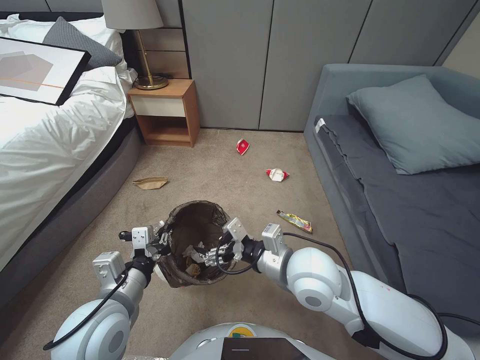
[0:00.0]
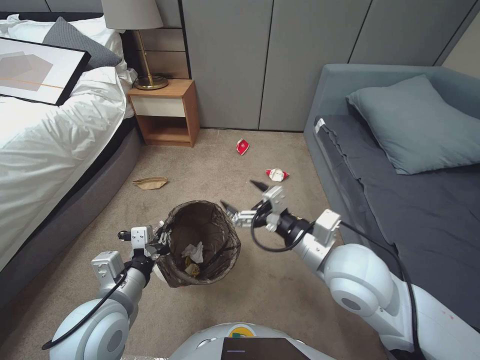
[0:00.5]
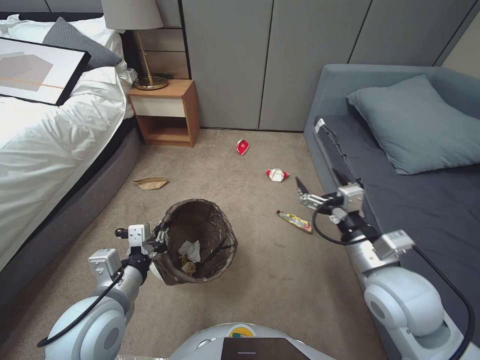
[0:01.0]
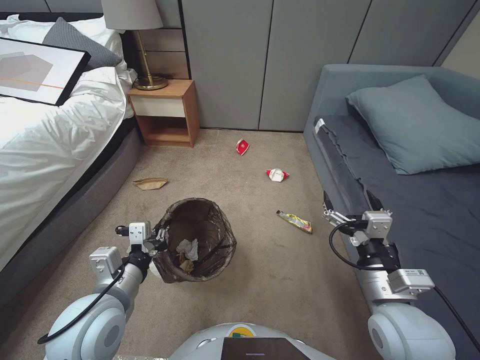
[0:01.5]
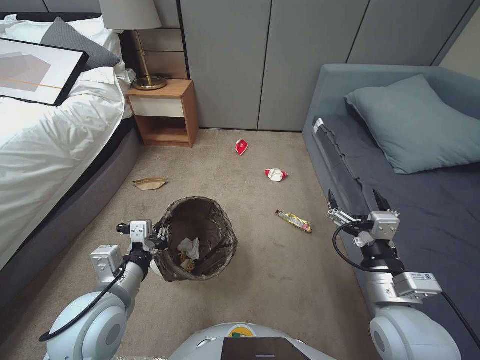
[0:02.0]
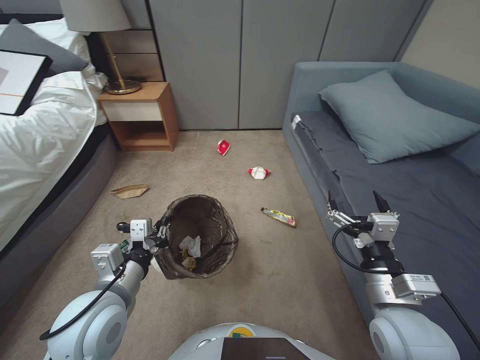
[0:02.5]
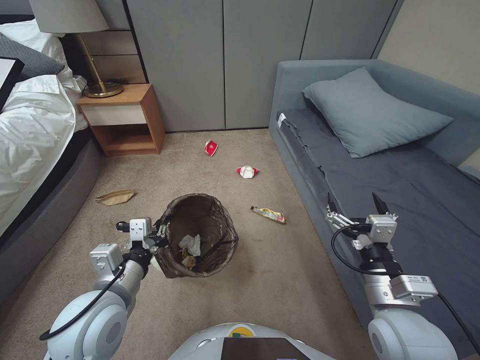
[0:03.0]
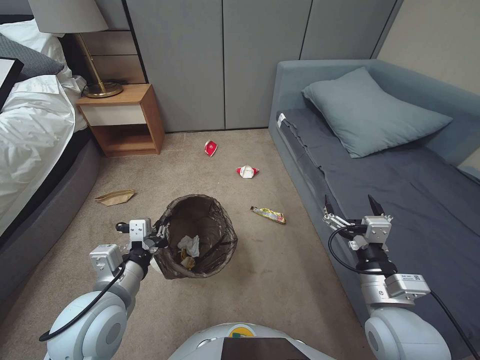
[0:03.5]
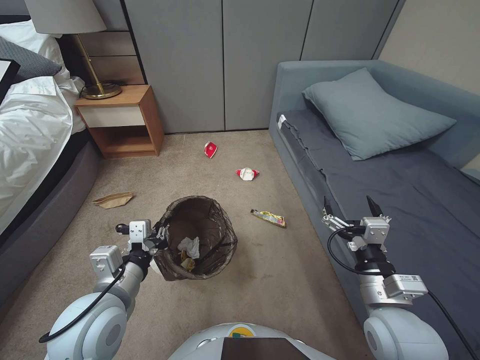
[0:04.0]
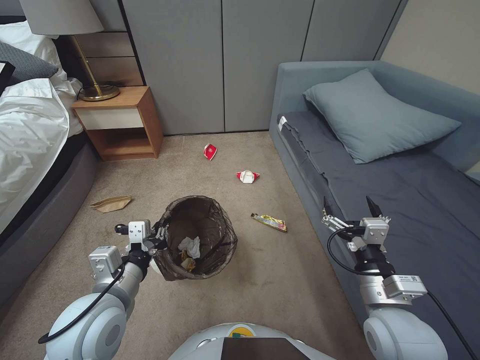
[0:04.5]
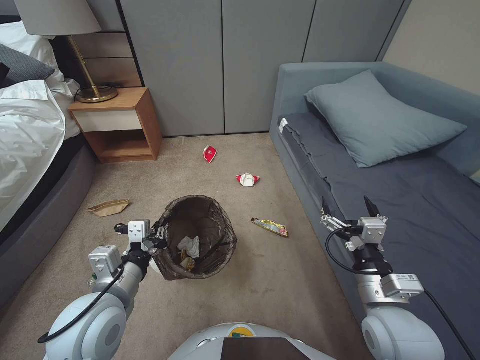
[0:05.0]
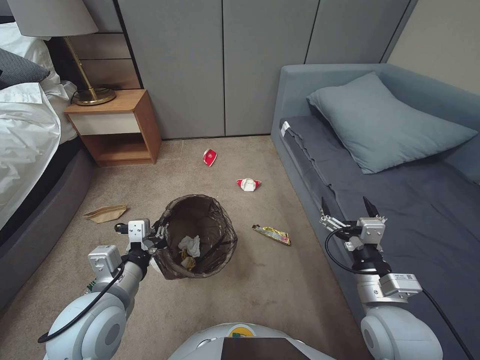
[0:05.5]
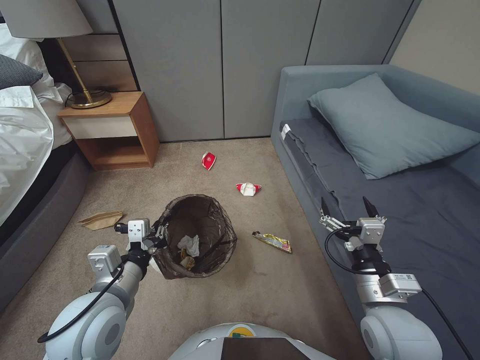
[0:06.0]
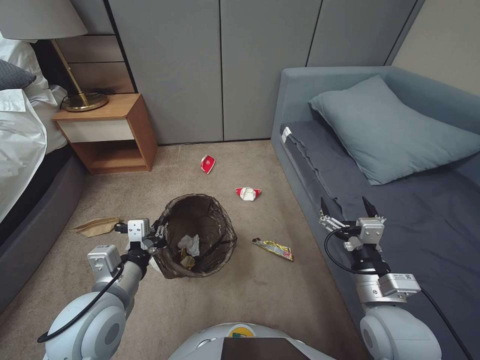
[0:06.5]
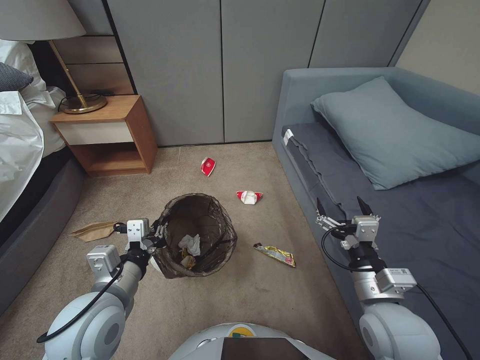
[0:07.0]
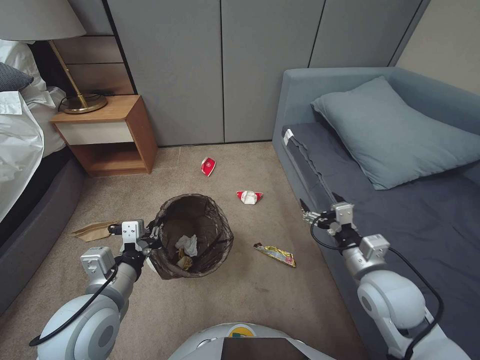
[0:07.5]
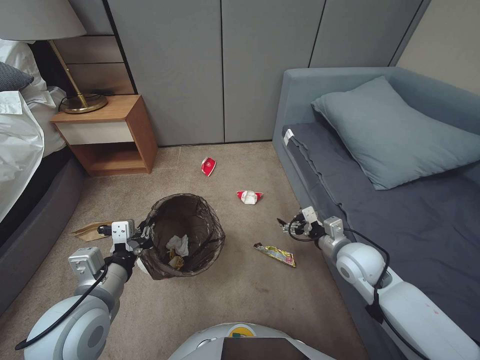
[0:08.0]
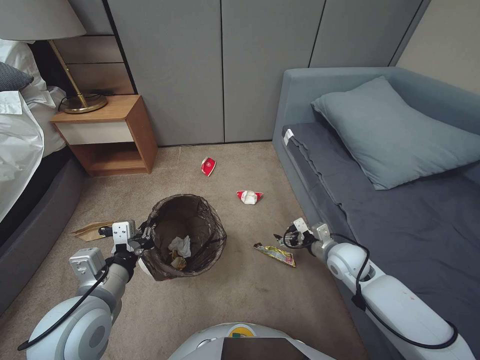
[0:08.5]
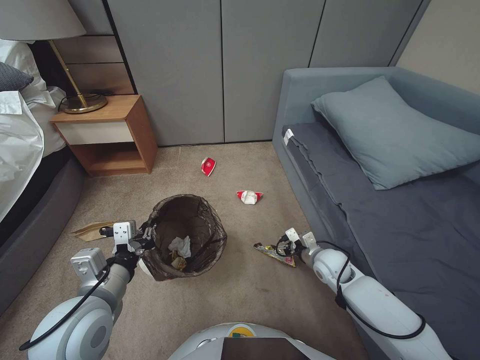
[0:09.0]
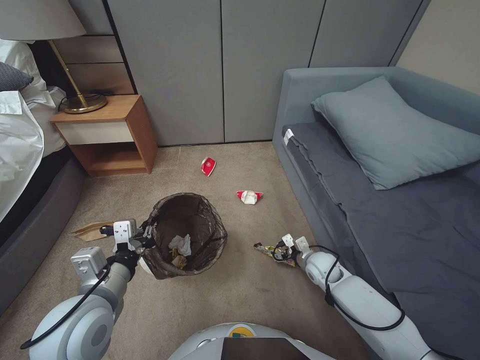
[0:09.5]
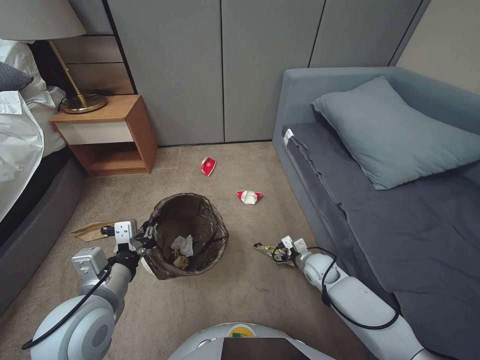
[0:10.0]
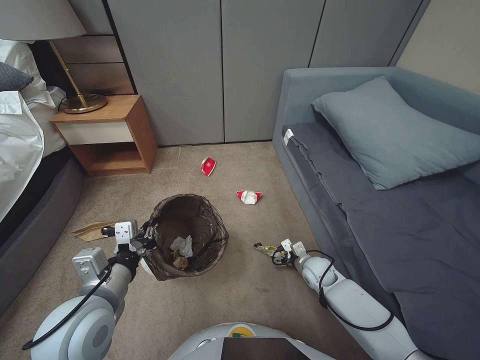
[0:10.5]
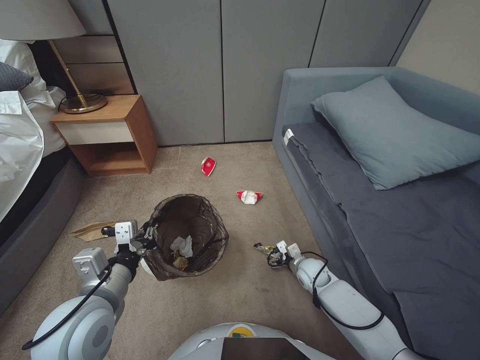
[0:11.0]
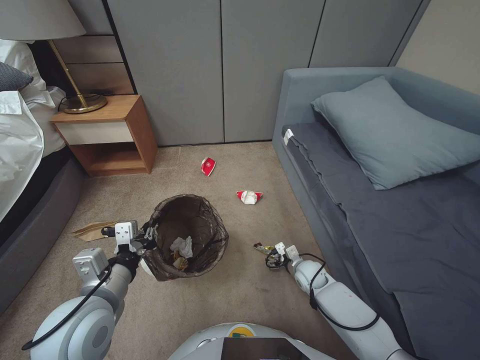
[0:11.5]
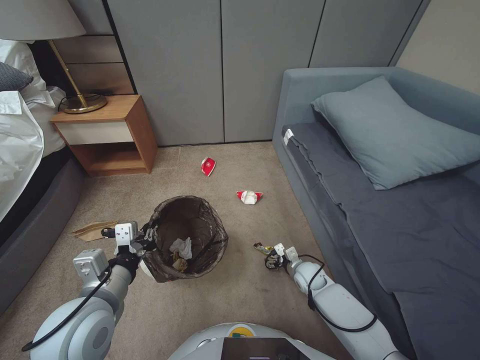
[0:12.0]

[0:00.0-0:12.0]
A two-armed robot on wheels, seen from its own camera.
Task of the whole recording: Pick up the trash bin, then pick up the garbage from the floor and place it into the trash bin.
0.0 to 2.0 s: The right gripper shifts roughly 15 cm to the right and backward.
4.0 to 6.0 s: Both grippers stay put.
6.0 to 8.0 s: The right gripper goes roughly 15 cm forward.
8.0 to 10.0 s: The right gripper shifts some 15 cm downward.
10.0 to 12.0 s: The right gripper moves downward, about 5 cm.

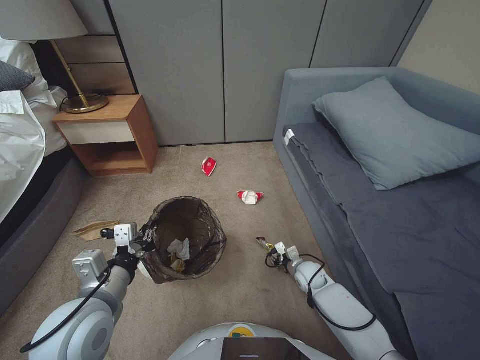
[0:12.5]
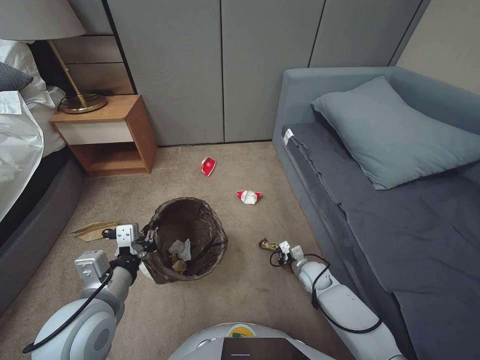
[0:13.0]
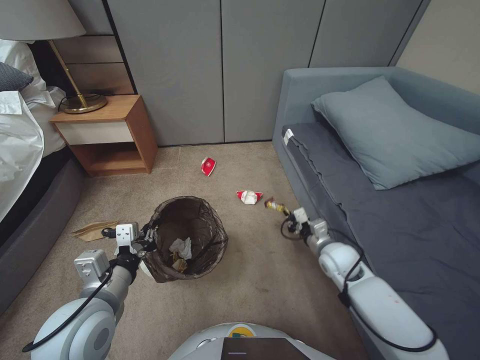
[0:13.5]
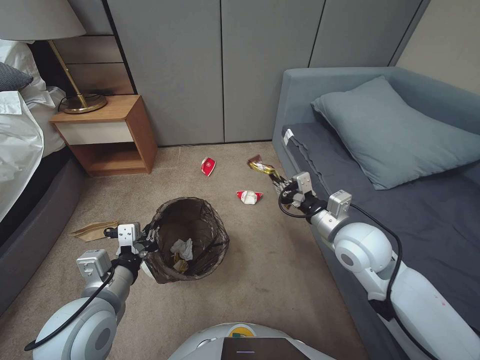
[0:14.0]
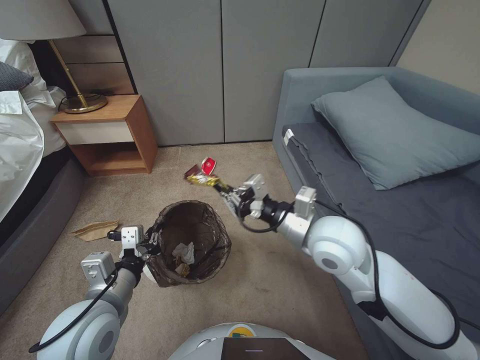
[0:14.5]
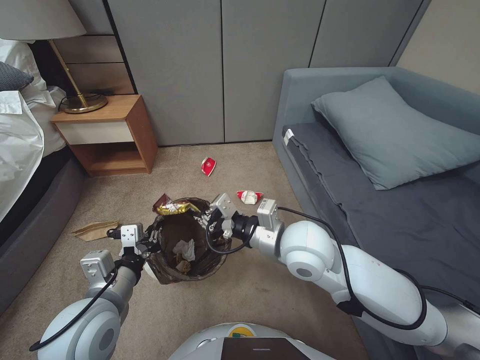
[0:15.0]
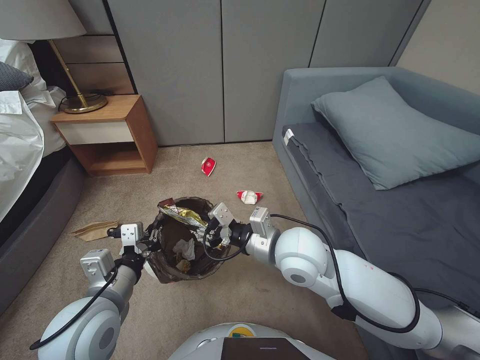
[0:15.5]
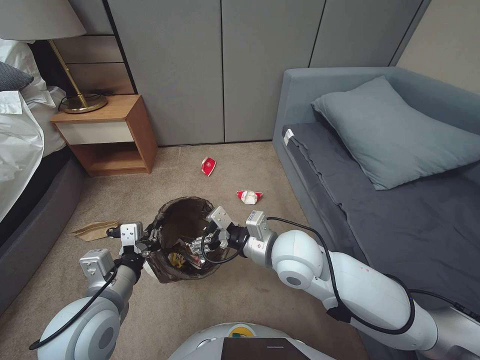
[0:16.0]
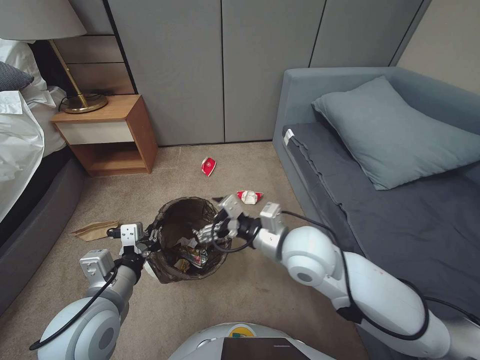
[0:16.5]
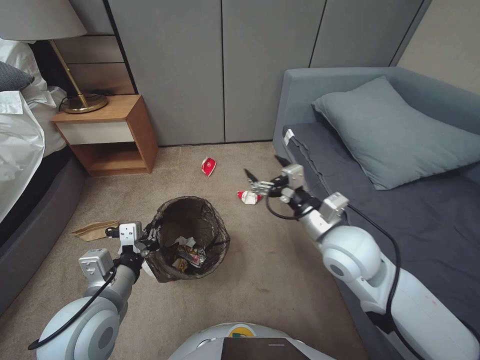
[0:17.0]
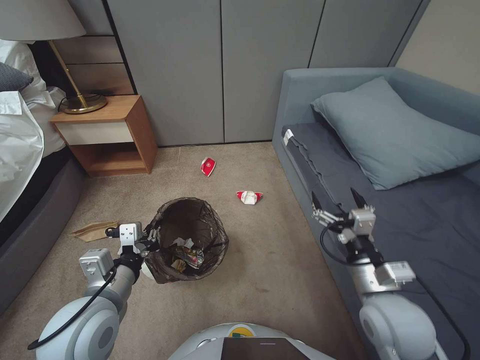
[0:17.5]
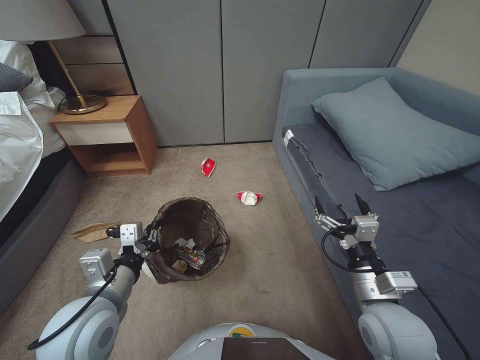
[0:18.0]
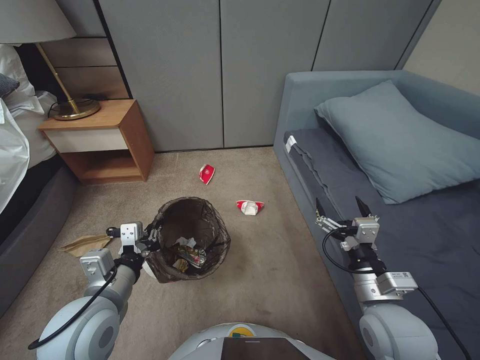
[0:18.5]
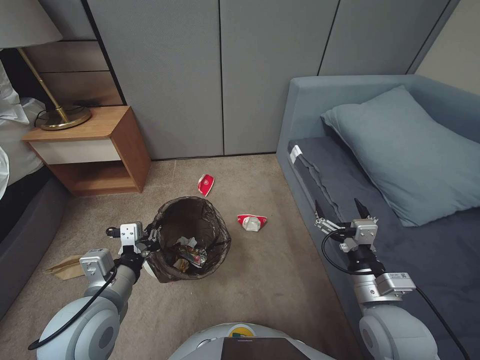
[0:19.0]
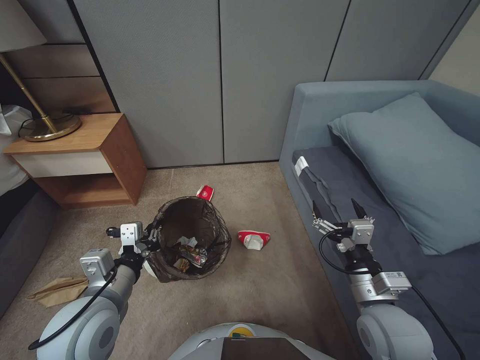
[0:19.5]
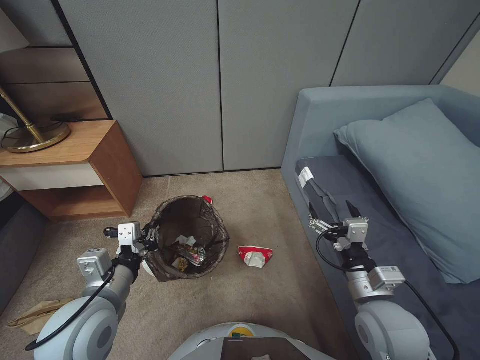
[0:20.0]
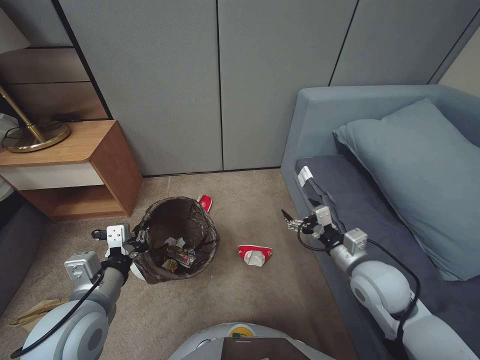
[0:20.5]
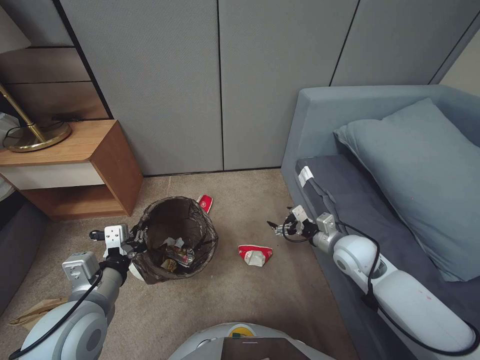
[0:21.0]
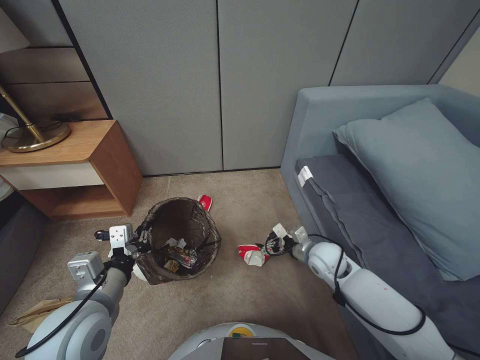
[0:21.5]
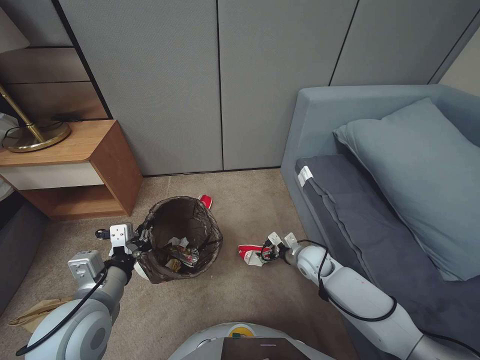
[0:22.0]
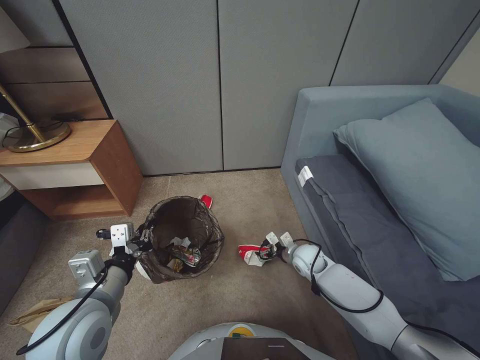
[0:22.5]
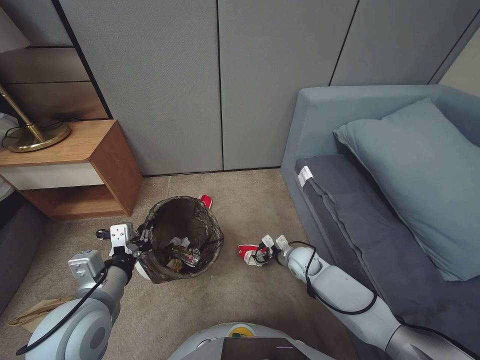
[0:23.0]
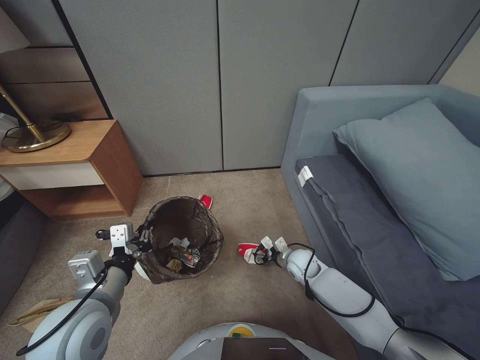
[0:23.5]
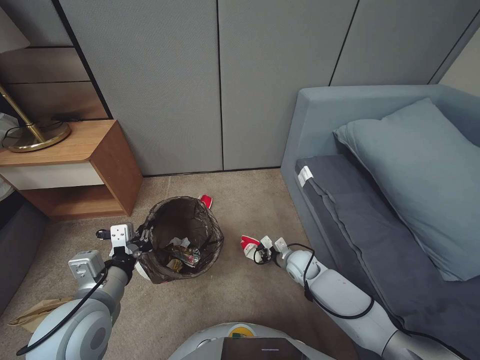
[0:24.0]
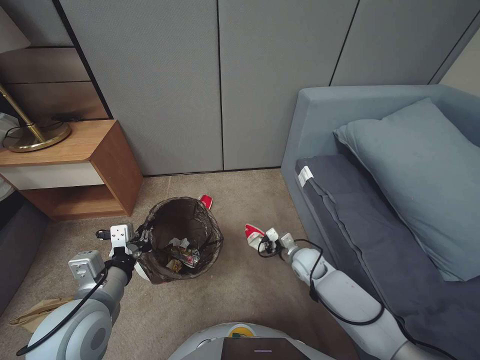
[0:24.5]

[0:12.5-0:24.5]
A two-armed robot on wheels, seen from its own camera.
Task of the whole recording: Pick up the trash bin, then pick up the garbage from the floor and place it into the trash bin.
12.5 to 14.5 s: The right gripper shifts roughly 35 cm upward, and closes.
14.5 to 16.5 s: The right gripper is displaced to the left by some 5 cm, and opens up.
16.5 to 18.5 s: The right gripper moves to the right, backward and downward, approximately 20 cm.
18.5 to 20.5 s: The right gripper heads forward, covering about 5 cm.
20.5 to 22.5 s: The right gripper travels downward and forward by about 25 cm.
22.5 to 24.5 s: The right gripper closes up.

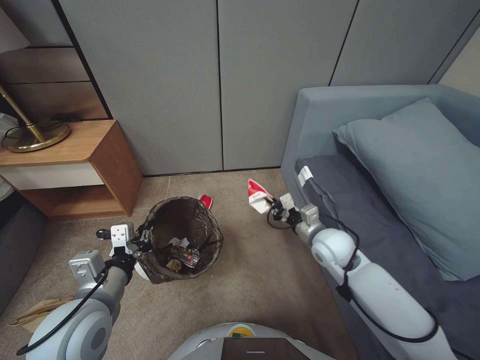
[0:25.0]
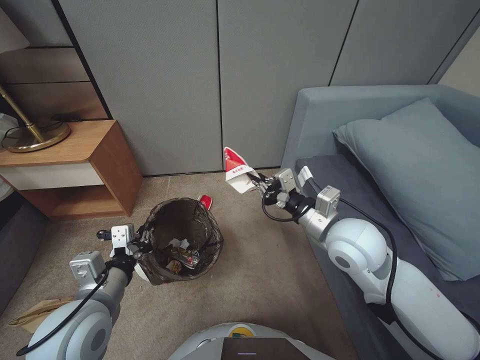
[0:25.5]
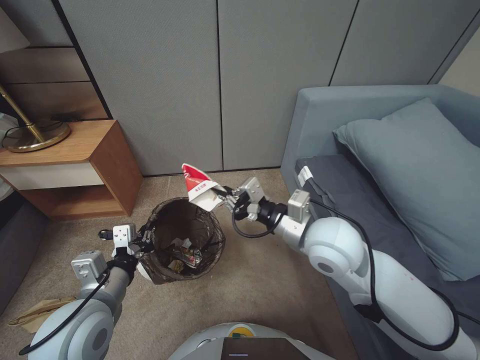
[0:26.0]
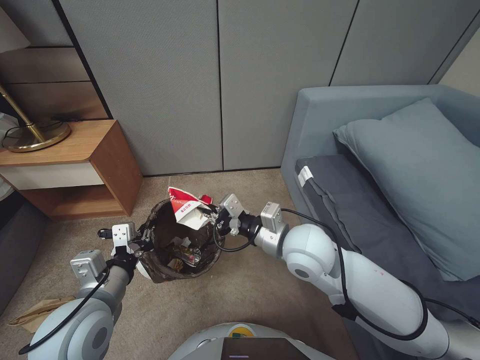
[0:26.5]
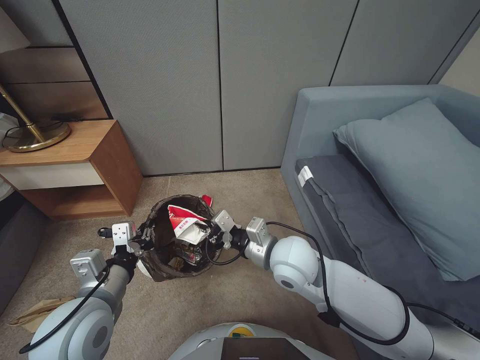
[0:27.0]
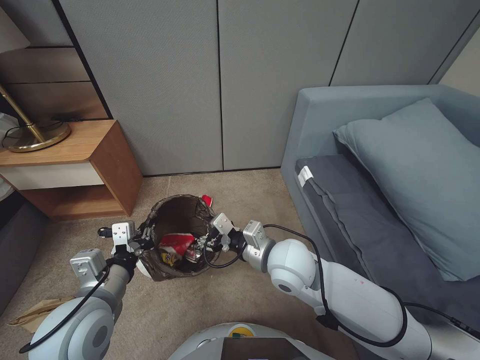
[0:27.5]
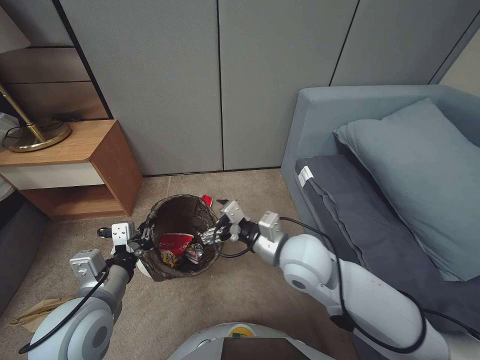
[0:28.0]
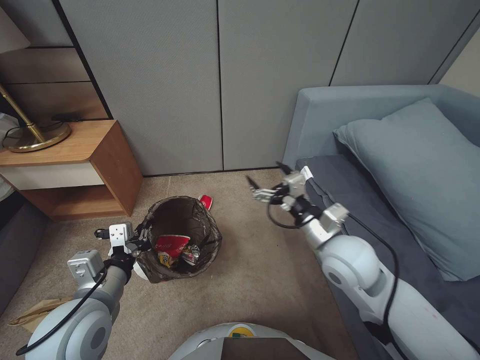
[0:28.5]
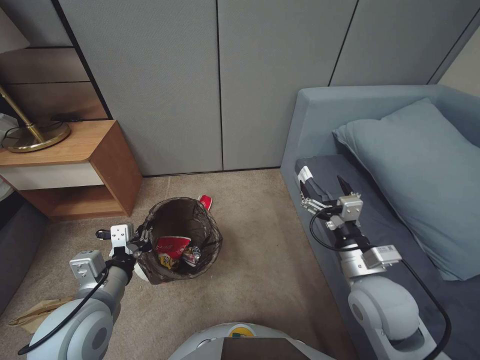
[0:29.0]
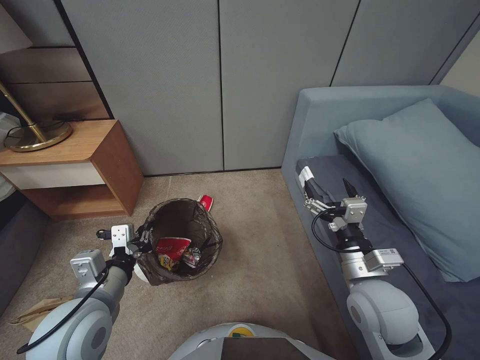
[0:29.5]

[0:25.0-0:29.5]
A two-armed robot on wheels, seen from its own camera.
Task of the whole recording: Pick up the trash bin, then pick up the garbage from the floor and place it into the trash bin.
25.0 to 27.0 s: The right gripper travels to the left, upward and backward by some 15 cm.
27.0 to 29.5 s: The right gripper shifts some 15 cm to the right and backward, and opens.
